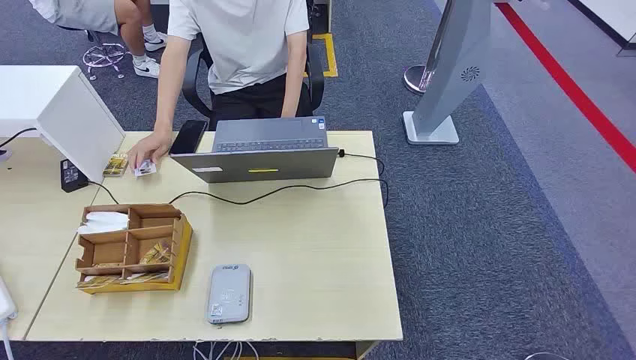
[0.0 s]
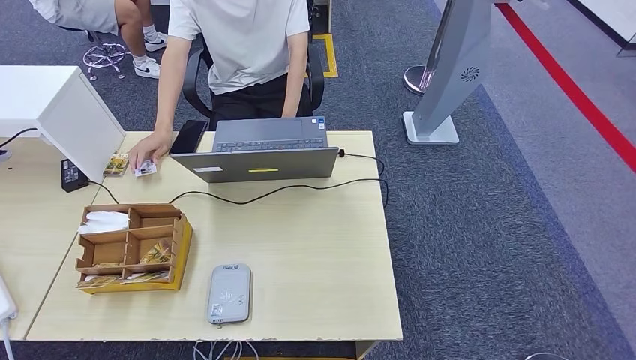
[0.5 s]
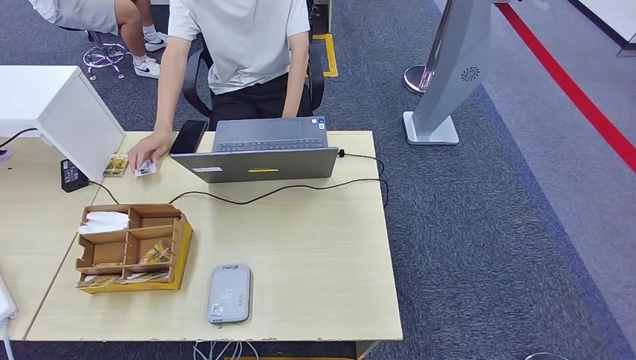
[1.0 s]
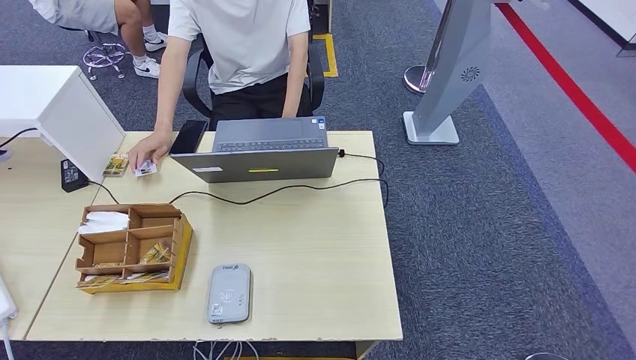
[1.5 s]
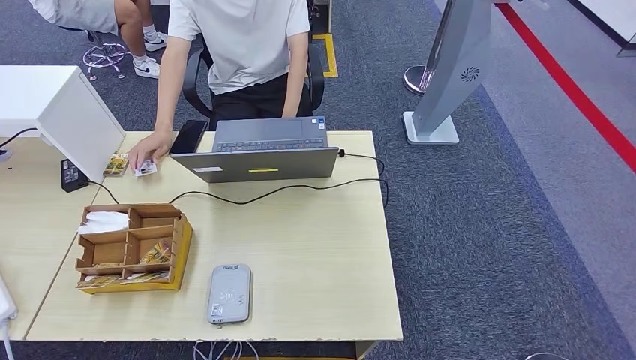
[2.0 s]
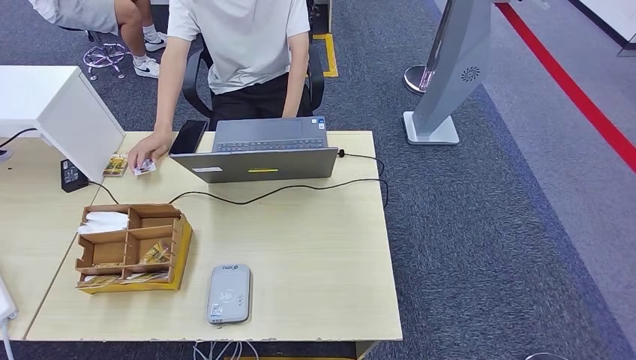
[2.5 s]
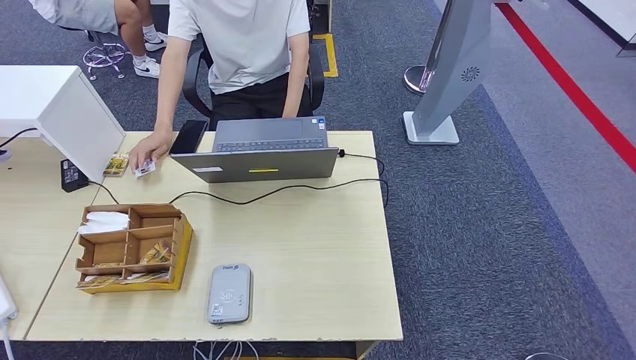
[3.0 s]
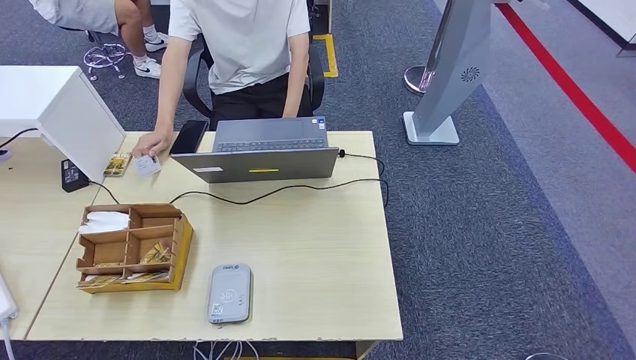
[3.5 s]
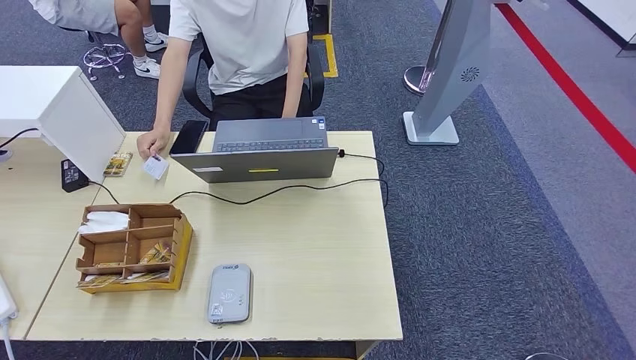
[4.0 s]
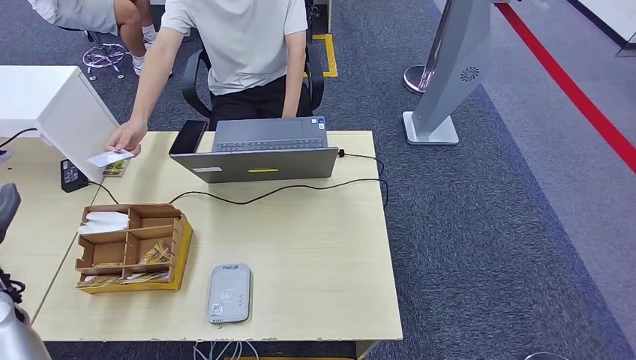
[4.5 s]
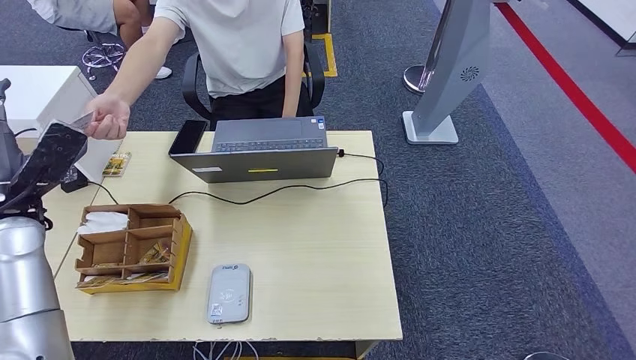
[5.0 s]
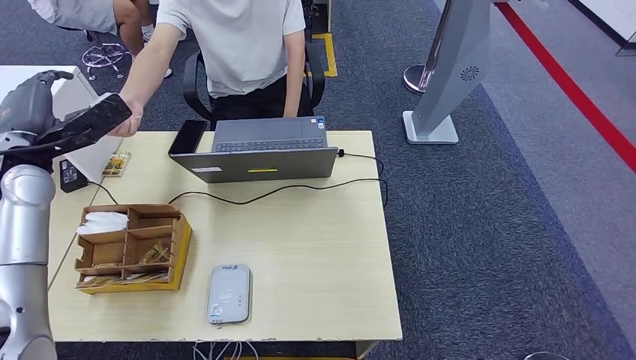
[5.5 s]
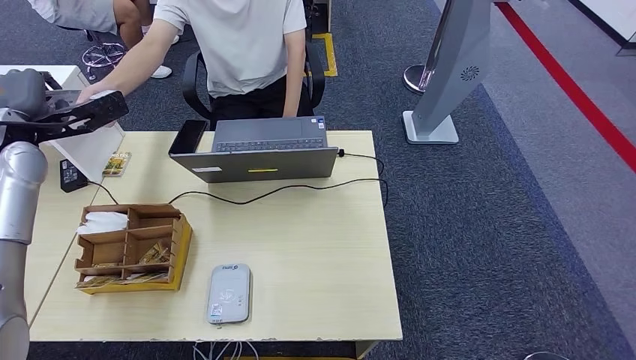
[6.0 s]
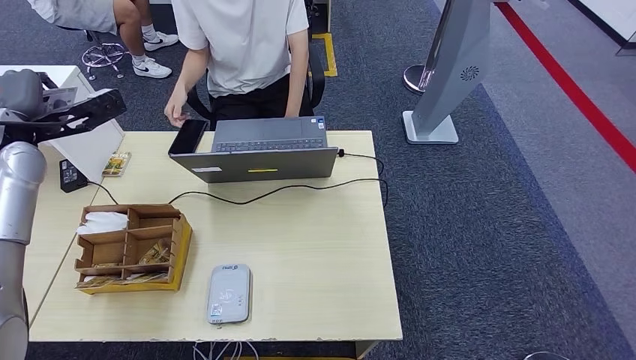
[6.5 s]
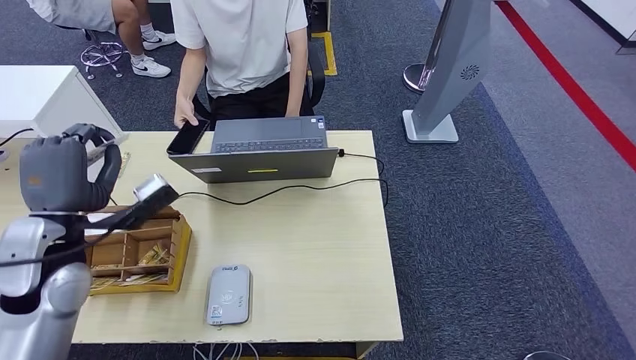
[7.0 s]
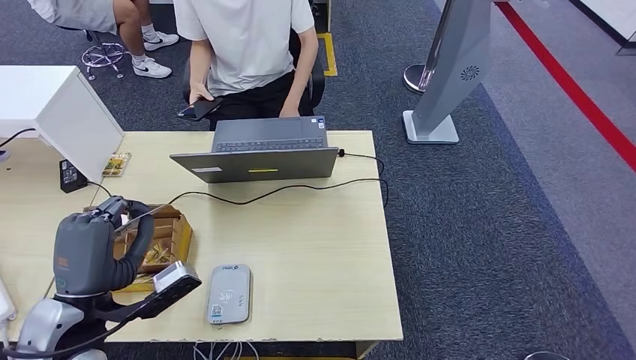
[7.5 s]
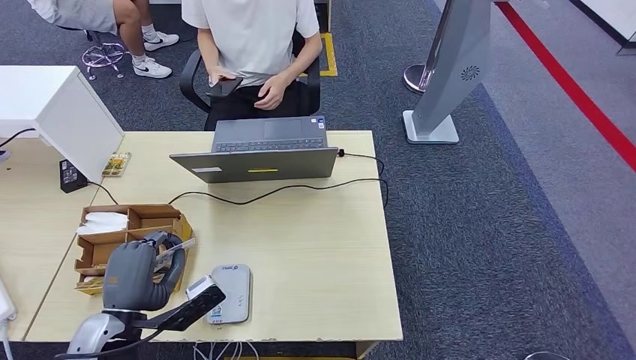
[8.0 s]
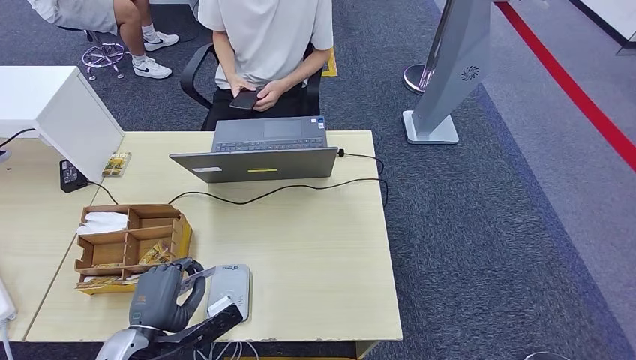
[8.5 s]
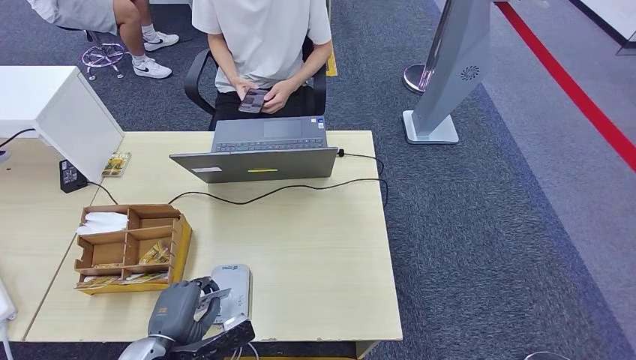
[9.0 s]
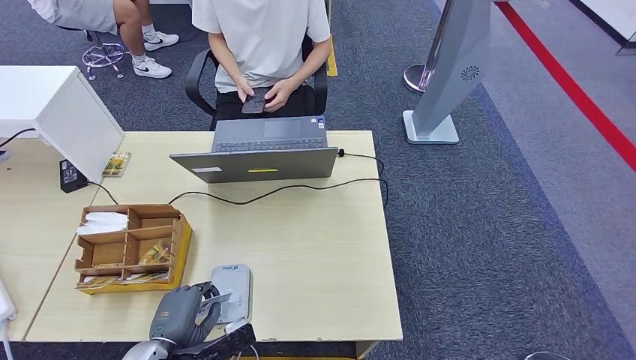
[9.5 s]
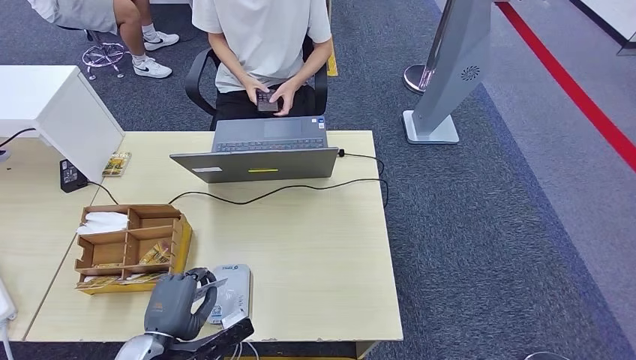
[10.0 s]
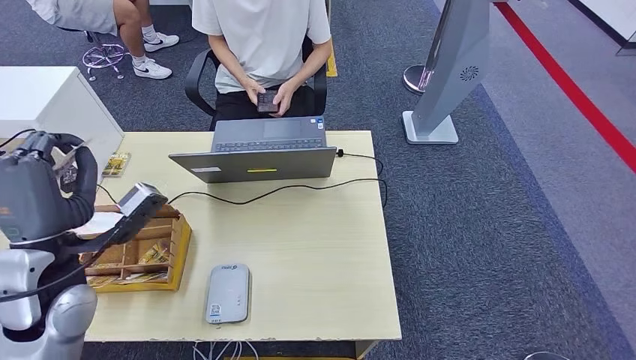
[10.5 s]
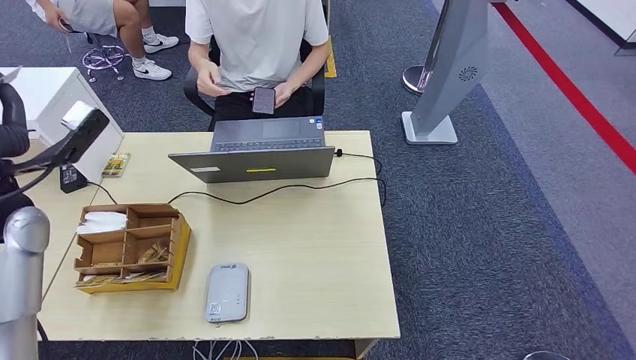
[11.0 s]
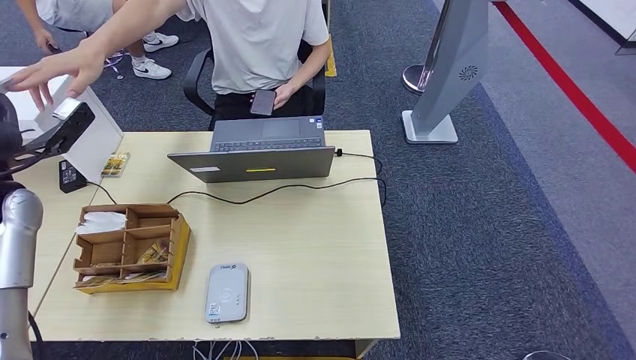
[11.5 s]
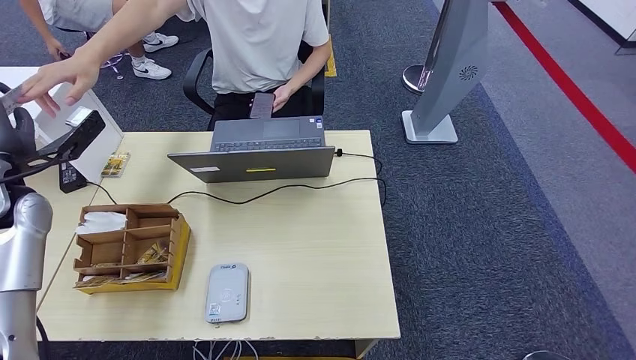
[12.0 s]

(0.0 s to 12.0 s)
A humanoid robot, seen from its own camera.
Step, 0.0 s - 6.0 s: Take the ID card from the person's hand.
Step, 7.0 s - 9.5 s: Place the ID card on the card reader.
2.0 s - 4.0 s: The left hand heads upward and forward, covering about 30 cm.
4.0 s - 6.0 s: The left hand travels forward and upward by about 35 cm.
6.0 s - 8.0 s: The left hand travels backward, downward and to the right by about 35 cm.
8.0 s - 10.0 s: The left hand is displaced downward by approximately 5 cm.

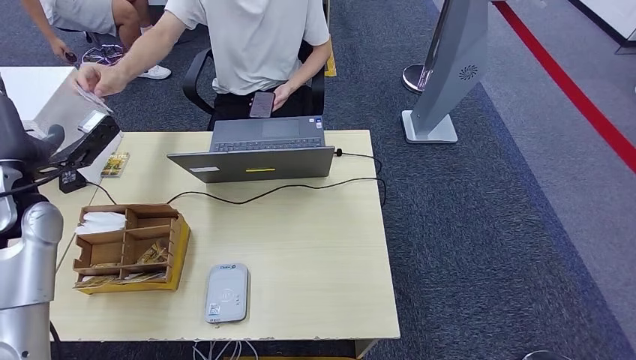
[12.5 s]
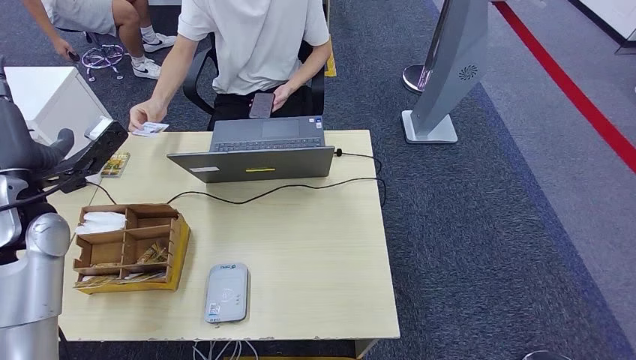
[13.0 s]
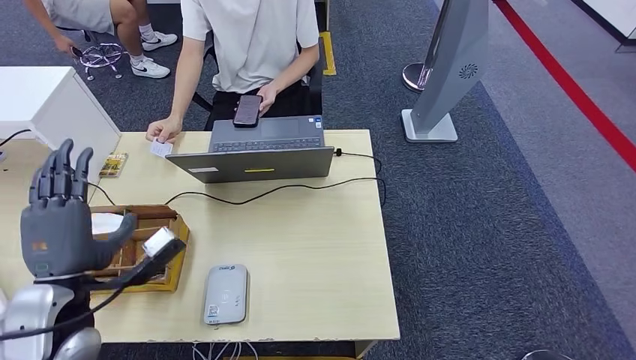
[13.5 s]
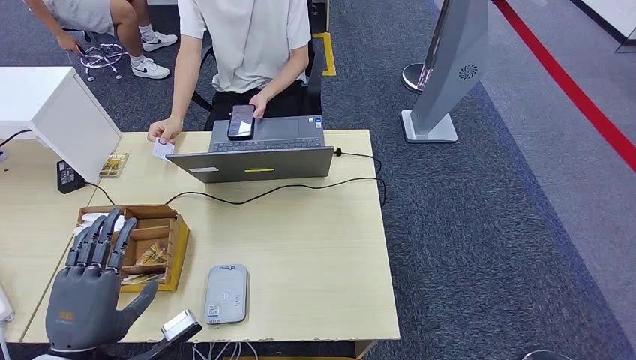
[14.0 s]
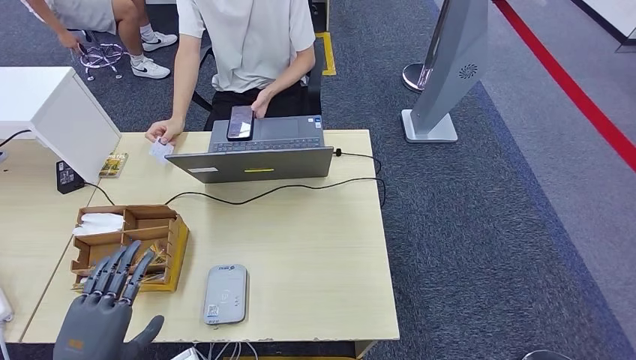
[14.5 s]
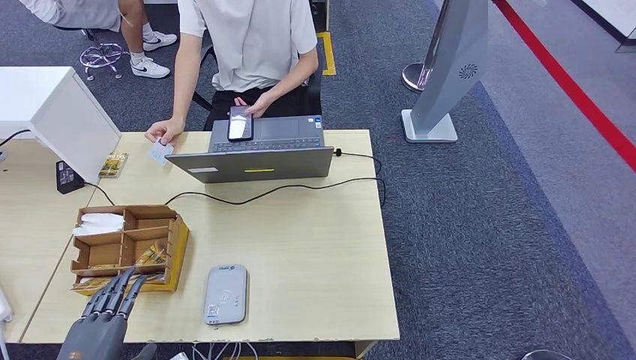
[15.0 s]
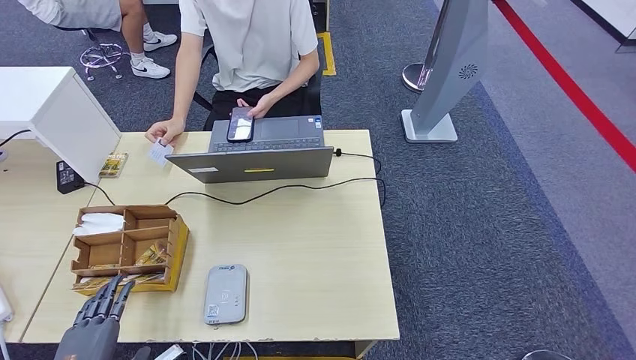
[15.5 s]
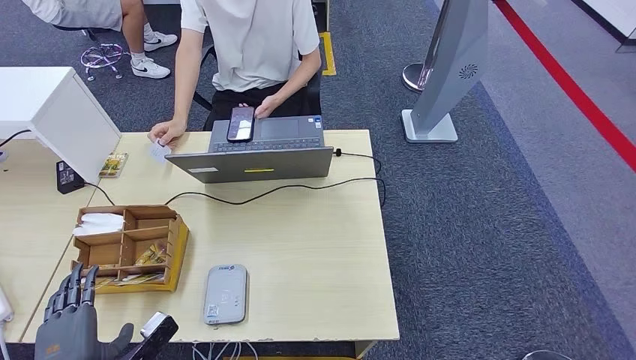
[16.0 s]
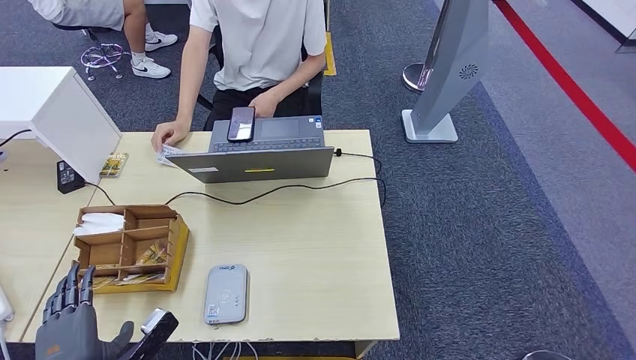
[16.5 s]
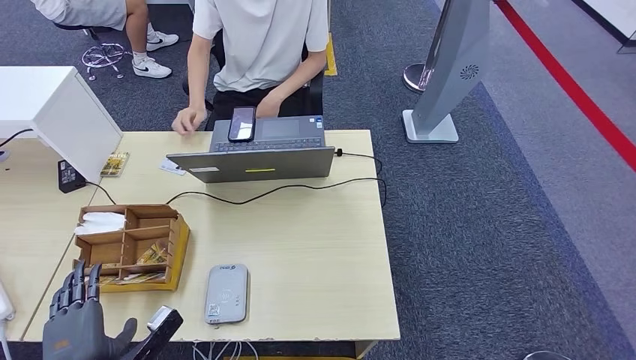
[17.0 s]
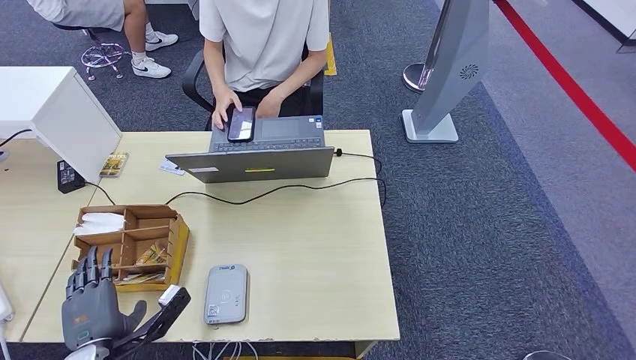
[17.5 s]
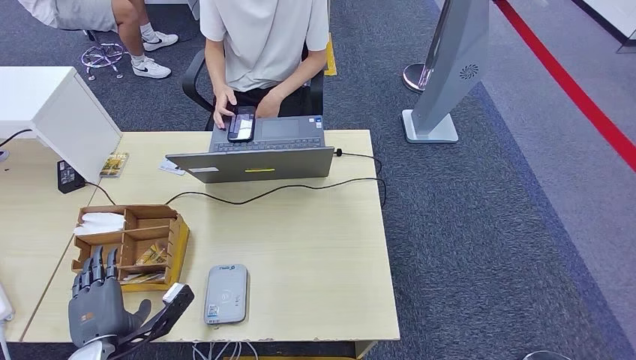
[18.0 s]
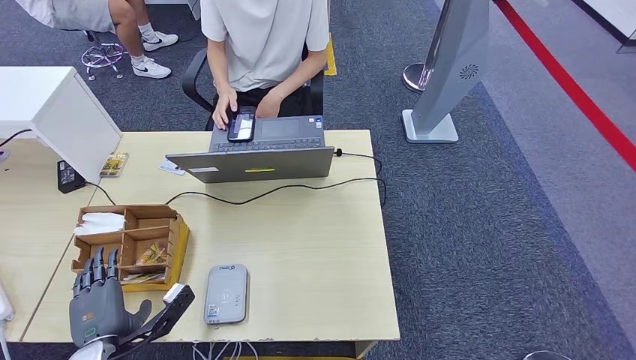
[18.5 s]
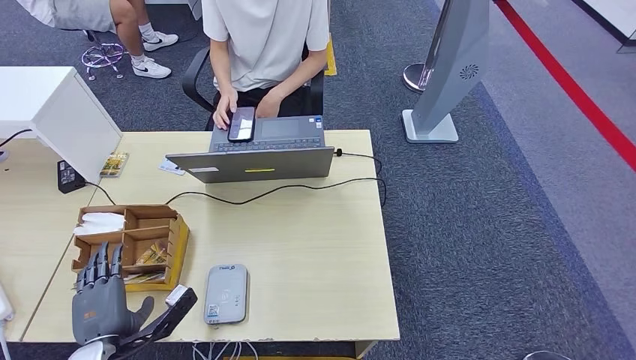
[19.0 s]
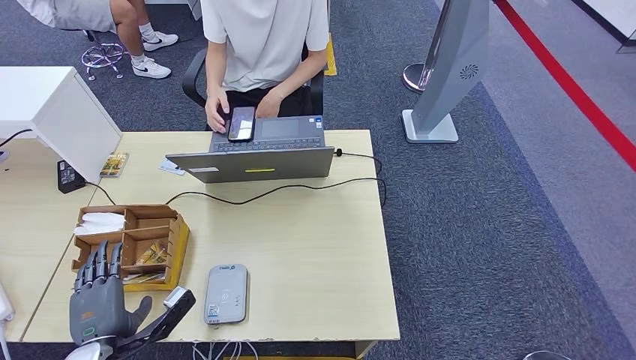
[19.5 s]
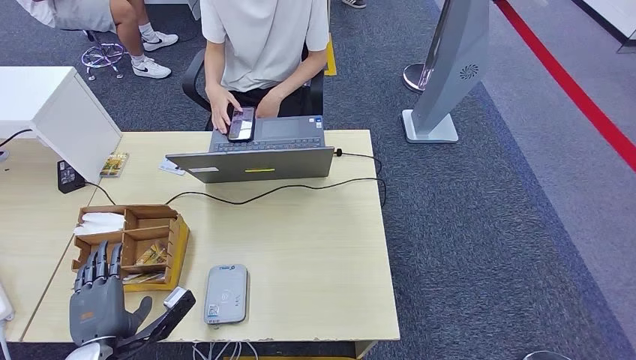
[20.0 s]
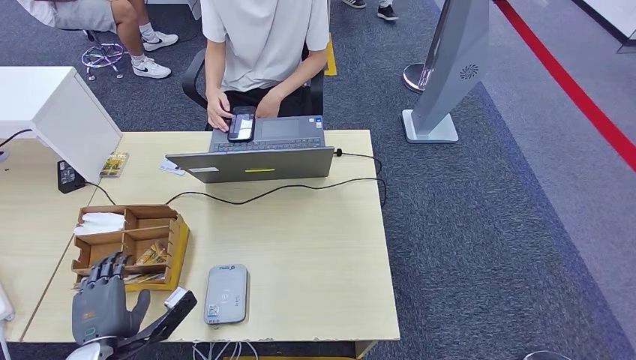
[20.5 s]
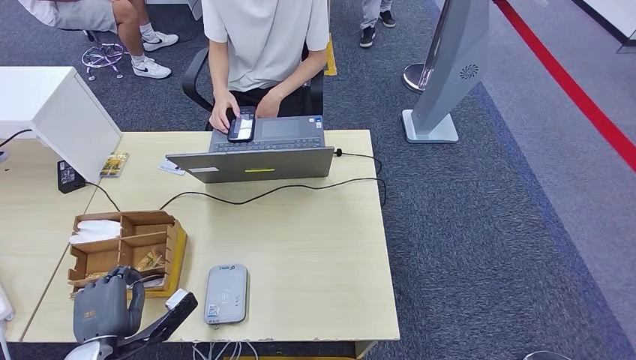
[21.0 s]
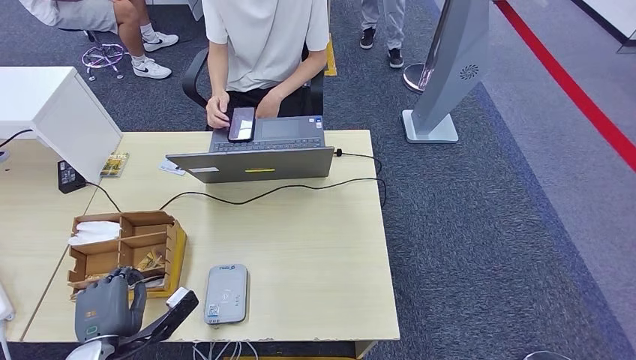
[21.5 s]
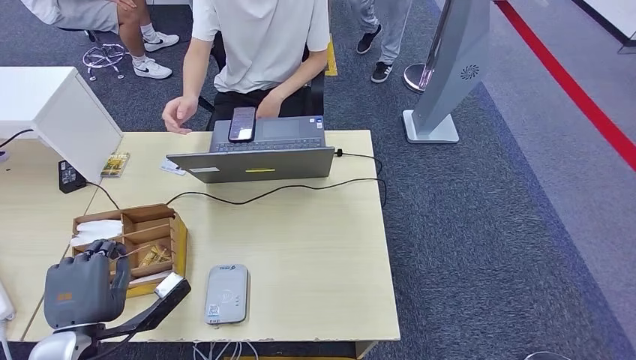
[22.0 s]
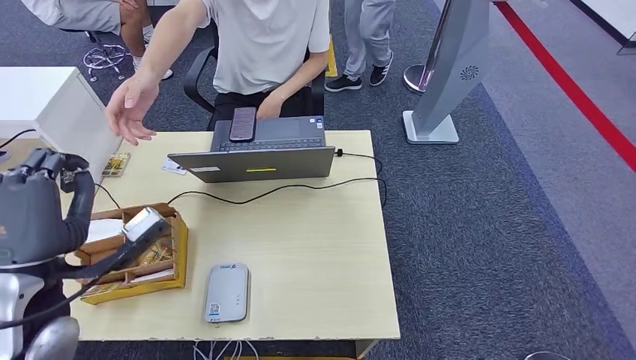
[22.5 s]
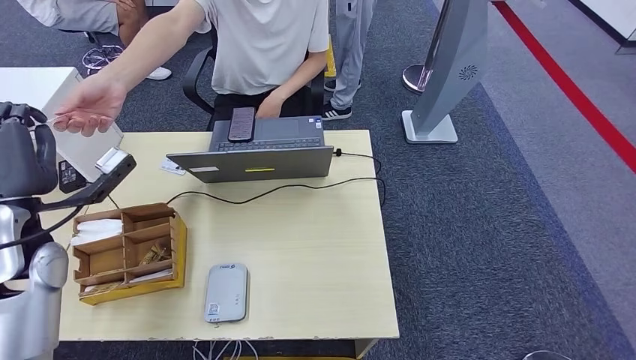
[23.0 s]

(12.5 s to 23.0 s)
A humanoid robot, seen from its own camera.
Step, 13.5 s - 22.5 s: Pick up the room key from the key card box.
16.5 s - 19.0 s: The left hand is displaced forward by approximately 5 cm.
19.0 s - 21.0 s: Both hands stay put.
